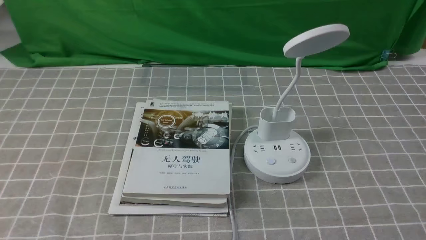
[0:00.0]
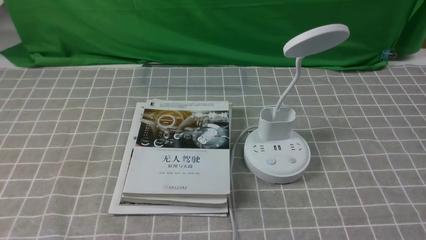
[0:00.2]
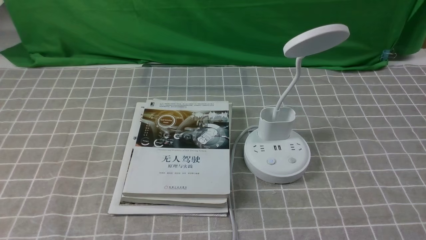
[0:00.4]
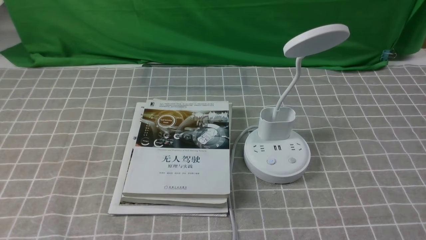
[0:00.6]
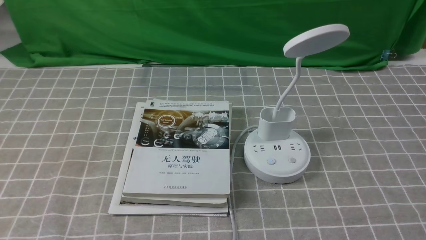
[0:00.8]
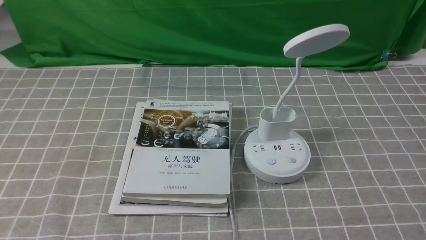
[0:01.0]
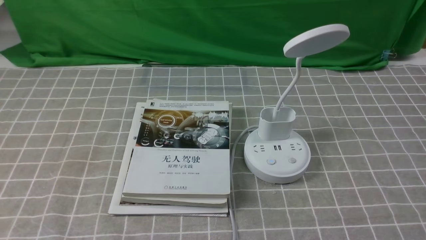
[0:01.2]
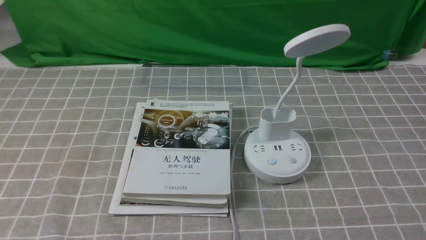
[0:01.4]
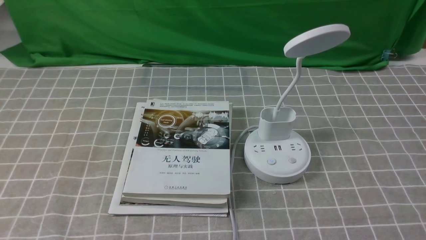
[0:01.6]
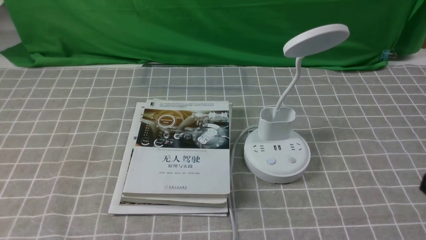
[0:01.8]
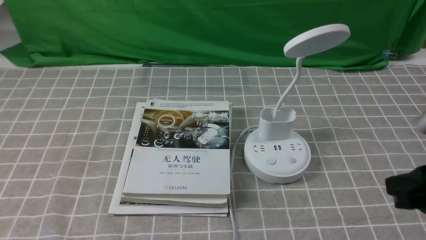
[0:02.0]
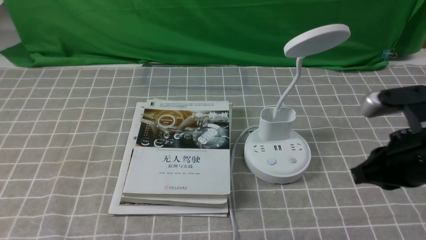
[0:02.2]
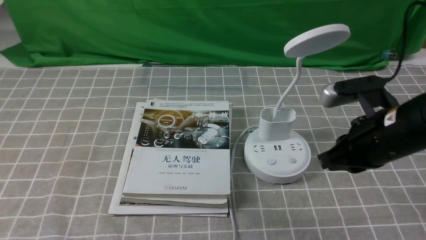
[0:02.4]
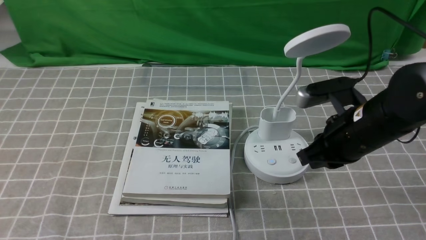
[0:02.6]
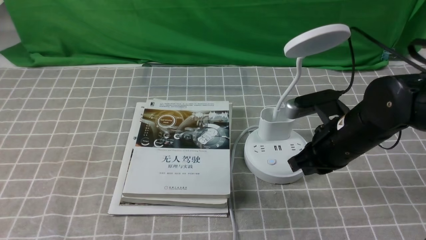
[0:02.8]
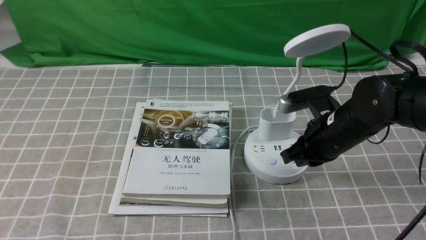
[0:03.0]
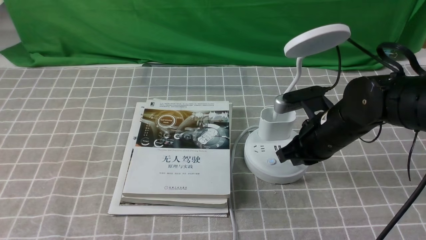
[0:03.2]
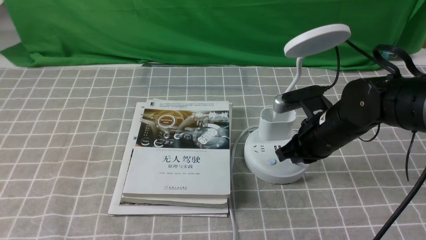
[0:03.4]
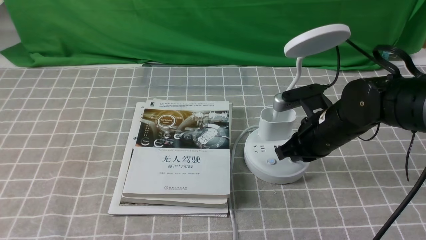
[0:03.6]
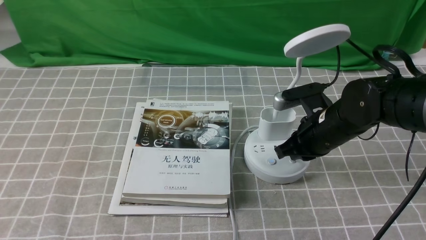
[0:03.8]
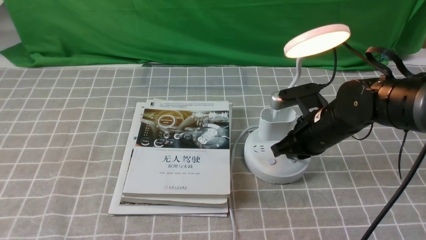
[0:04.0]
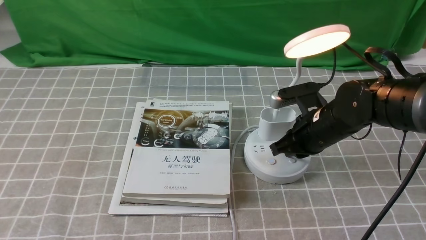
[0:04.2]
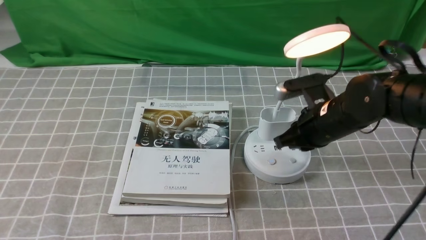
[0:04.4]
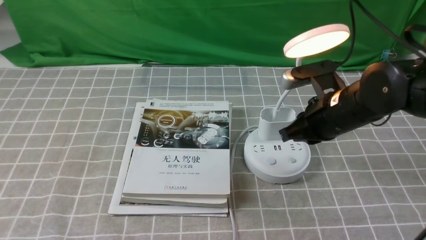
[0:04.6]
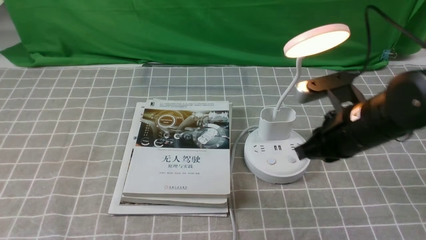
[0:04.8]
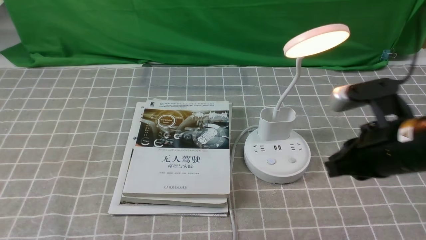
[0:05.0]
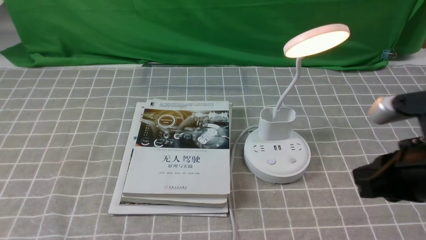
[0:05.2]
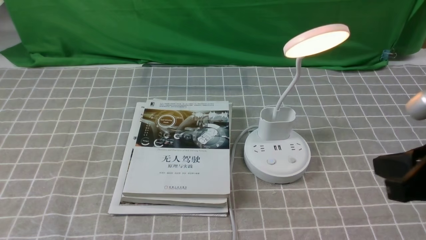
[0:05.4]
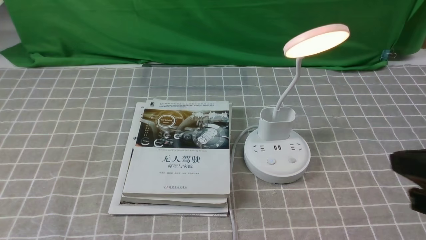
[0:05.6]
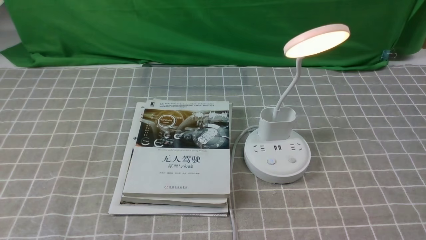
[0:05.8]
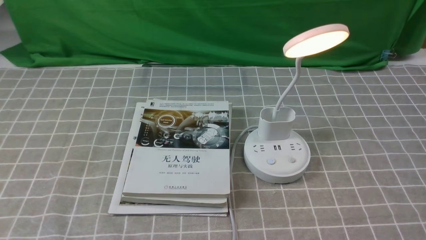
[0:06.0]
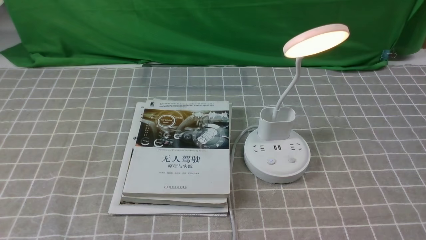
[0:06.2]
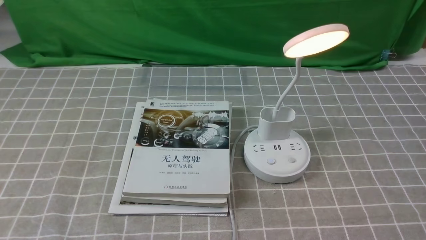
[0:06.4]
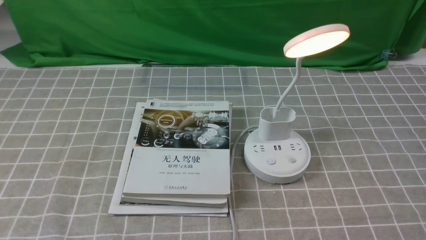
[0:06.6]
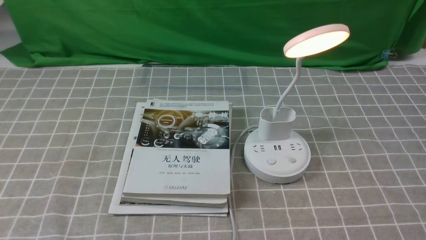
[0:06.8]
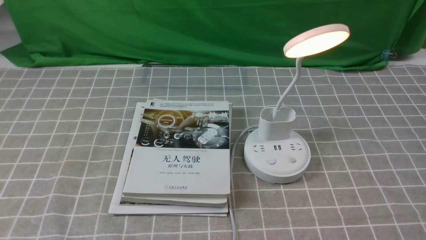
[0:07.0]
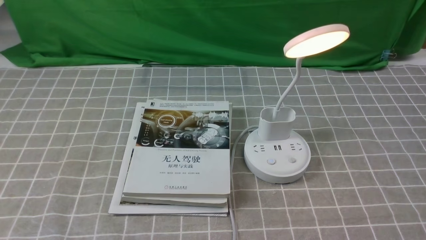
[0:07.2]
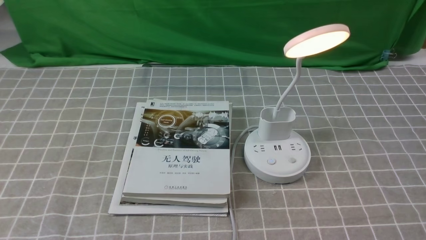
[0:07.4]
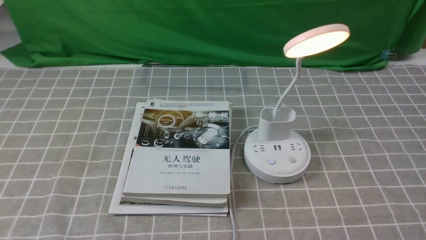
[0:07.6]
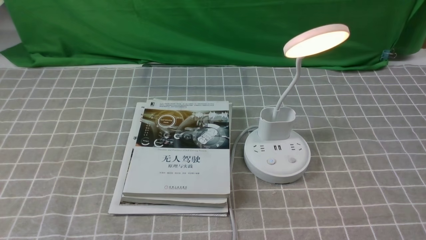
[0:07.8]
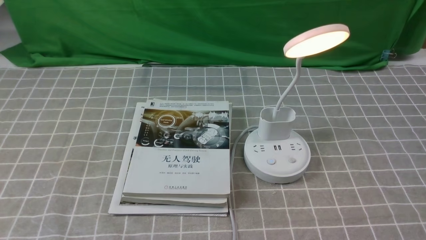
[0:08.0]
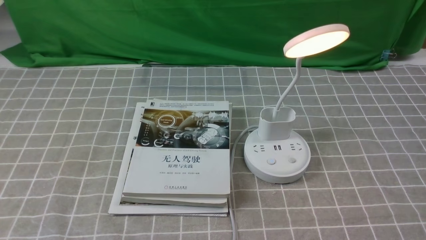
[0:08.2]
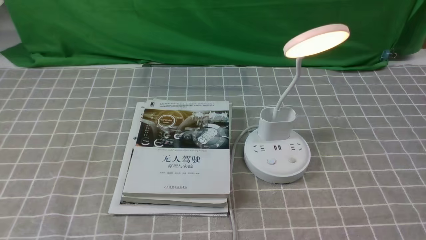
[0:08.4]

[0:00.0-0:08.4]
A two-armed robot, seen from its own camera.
Step, 0:00.0 to 0:04.2: use the right arm to press the button switch on the lamp holder.
0:01.4 to 0:02.8: The right gripper travels forward and to the left by approximately 30 cm, and closes.
0:02.8 to 0:04.2: The grippers move only a little.
0:04.2 to 0:05.6: The right gripper heads backward, upward and to the right, covering about 25 cm.
0:05.6 to 0:07.0: The right gripper shifts some 15 cm downward and backward.
